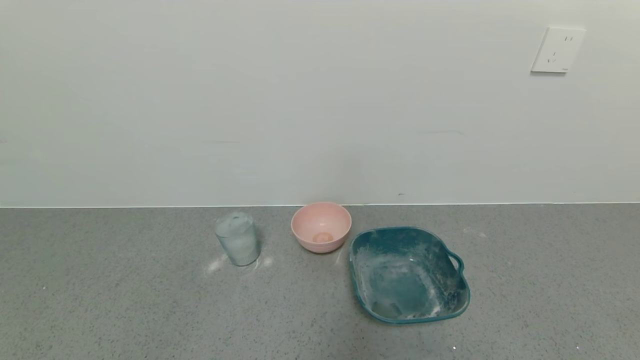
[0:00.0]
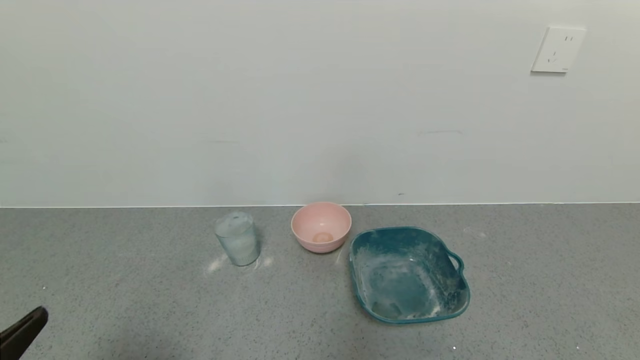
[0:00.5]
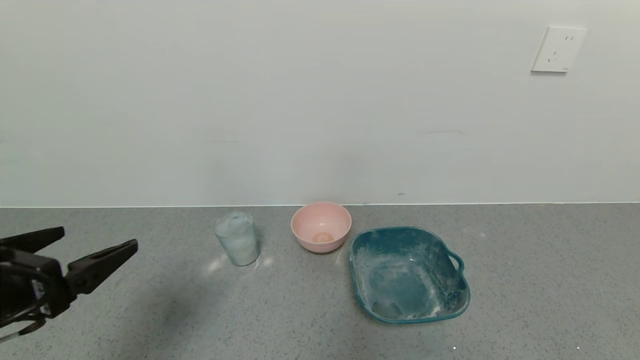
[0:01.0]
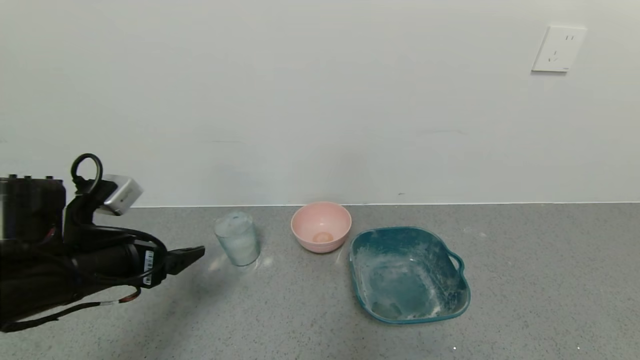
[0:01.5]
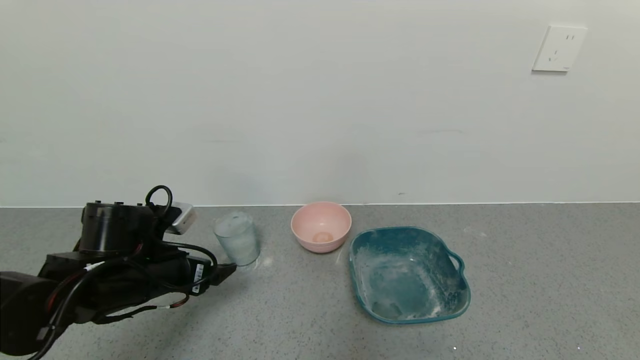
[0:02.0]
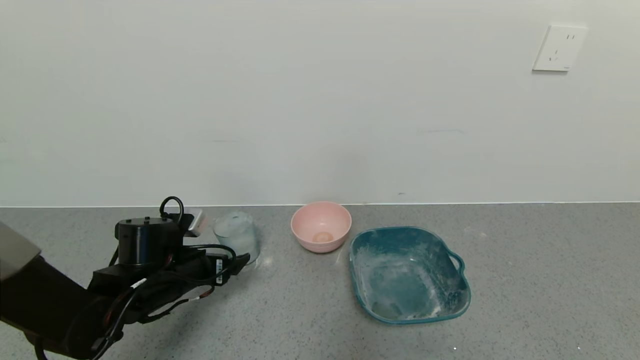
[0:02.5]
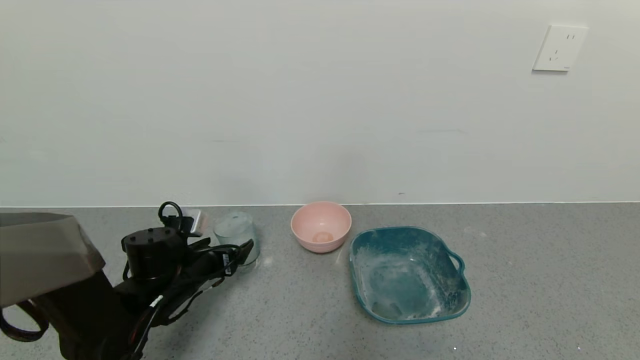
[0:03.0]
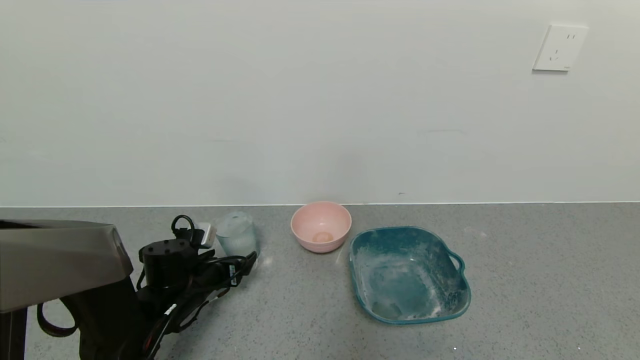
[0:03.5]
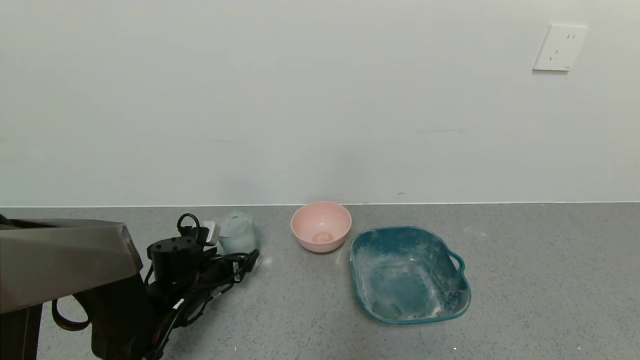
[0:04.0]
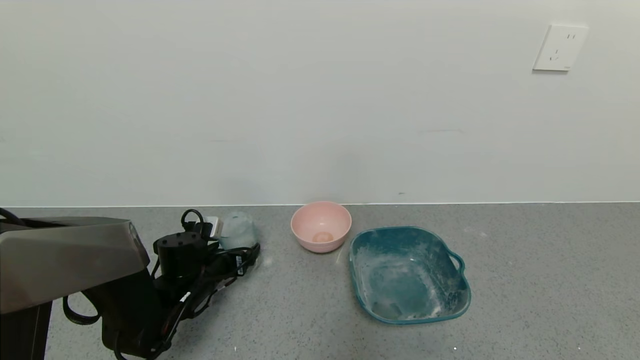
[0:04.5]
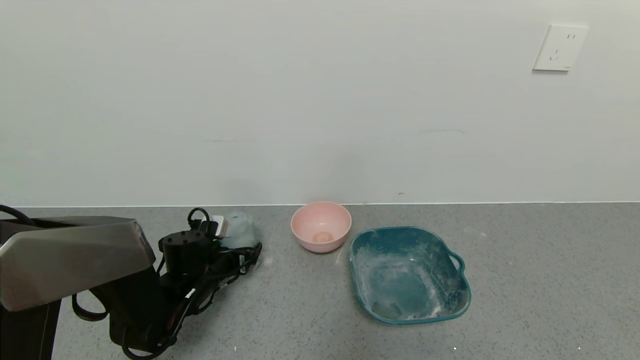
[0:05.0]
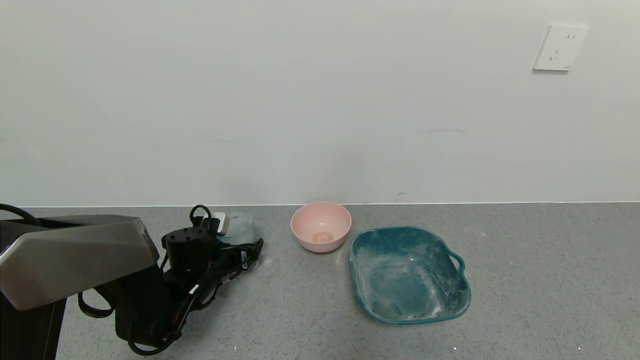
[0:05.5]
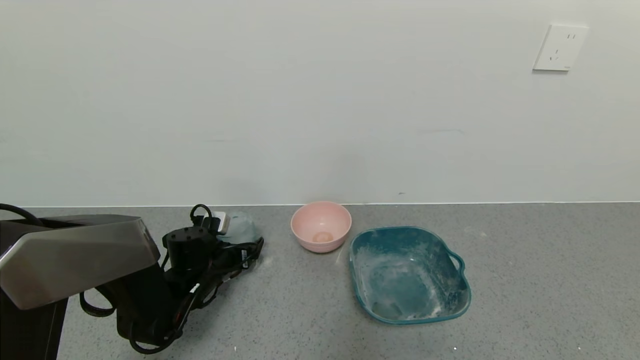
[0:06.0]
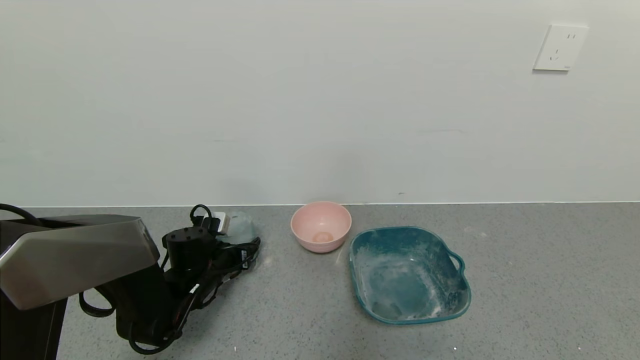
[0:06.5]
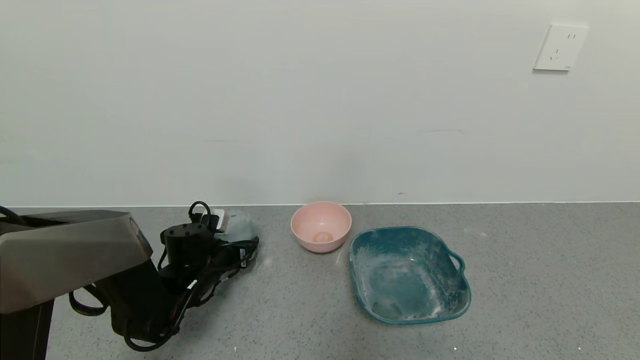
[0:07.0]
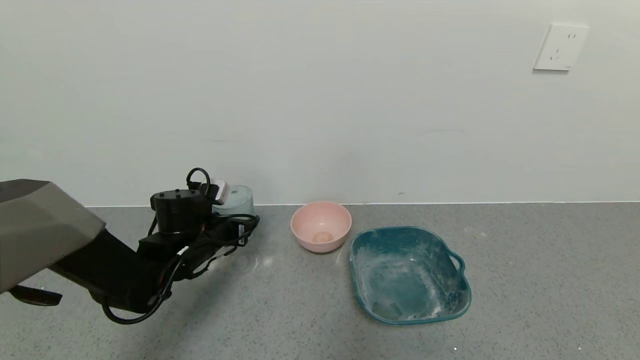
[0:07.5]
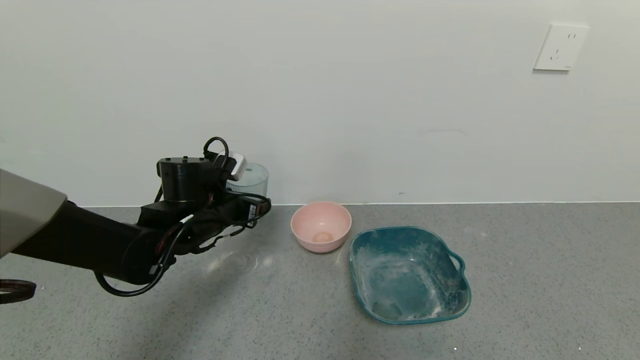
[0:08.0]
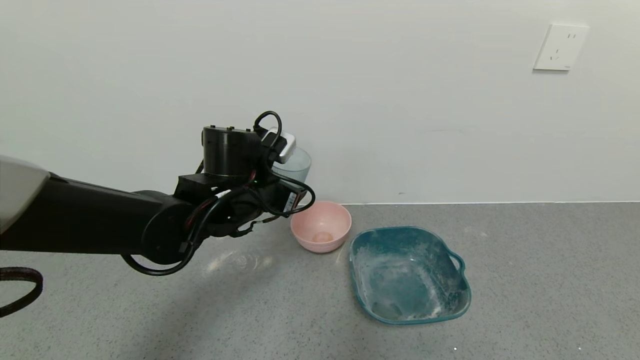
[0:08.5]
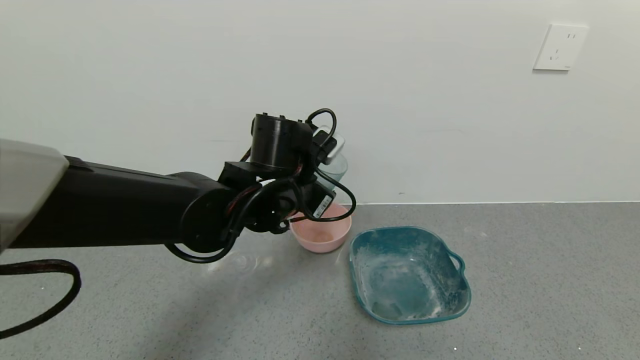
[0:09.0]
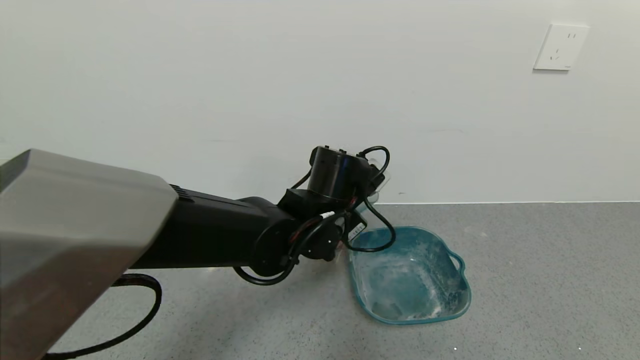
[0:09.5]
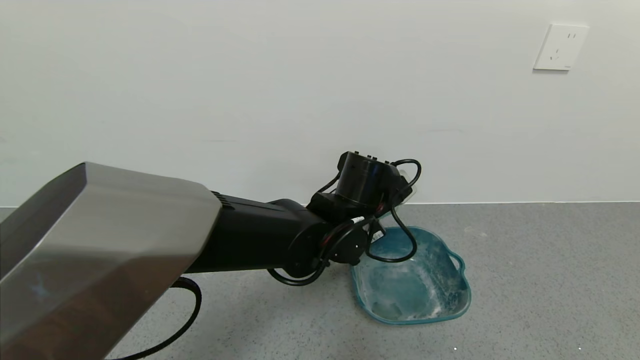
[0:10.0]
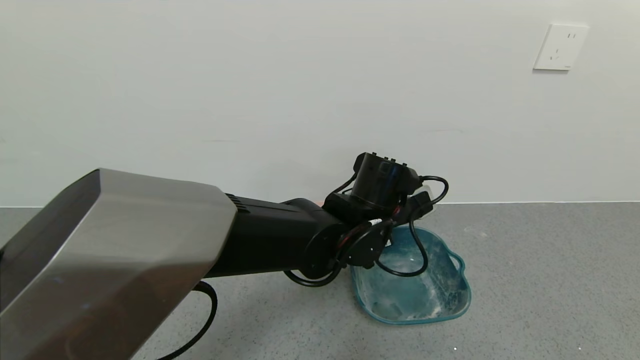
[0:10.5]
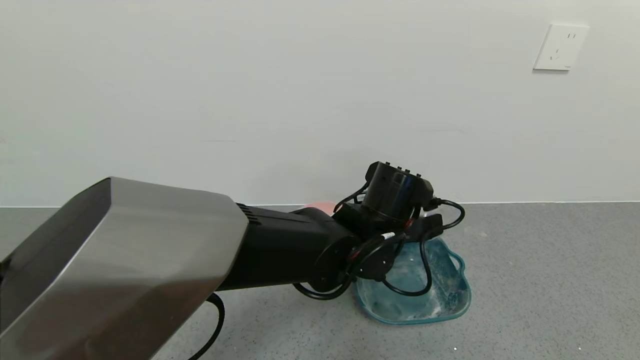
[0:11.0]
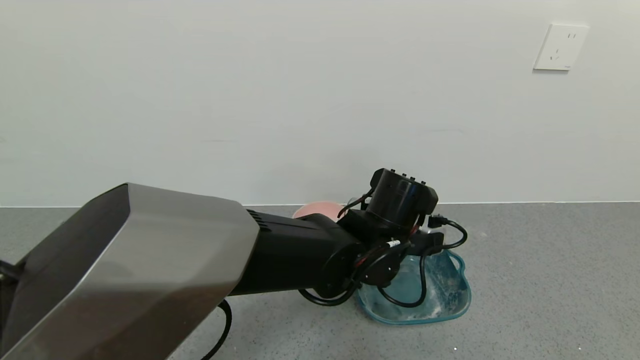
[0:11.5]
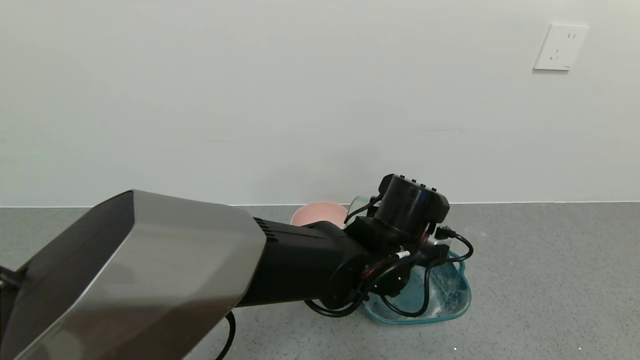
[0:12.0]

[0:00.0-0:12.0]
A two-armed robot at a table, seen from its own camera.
Task of the whole recording: use a gripper to pick up the cup and pour the powder into a bowl or tray.
Step, 0:00.0 to 0:06.0: Grasp the glass of powder with the left gripper.
0:00.0 to 0:02.0: The left gripper travels forward by about 30 cm.
0:02.0 to 0:04.0: The left gripper moves downward and forward, approximately 10 cm.
0:04.0 to 0:06.0: The grippers stay close to where they were, moving slightly.
0:06.0 to 0:08.0: The left gripper moves upward, roughly 15 cm, and closes its fingers.
0:08.0 to 0:10.0: The left gripper is displaced to the right by some 20 cm.
0:10.0 to 0:12.0: The left gripper changes place by about 5 cm.

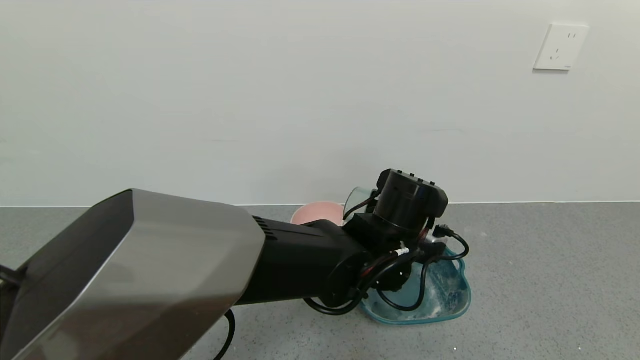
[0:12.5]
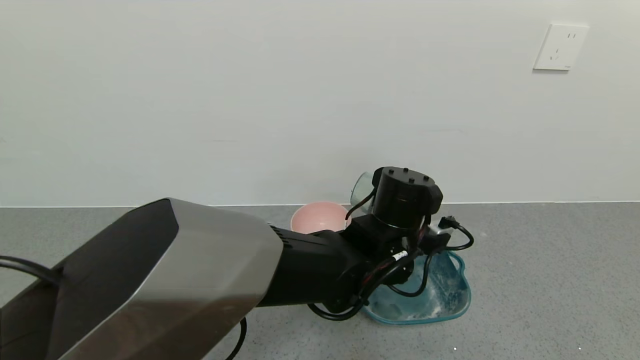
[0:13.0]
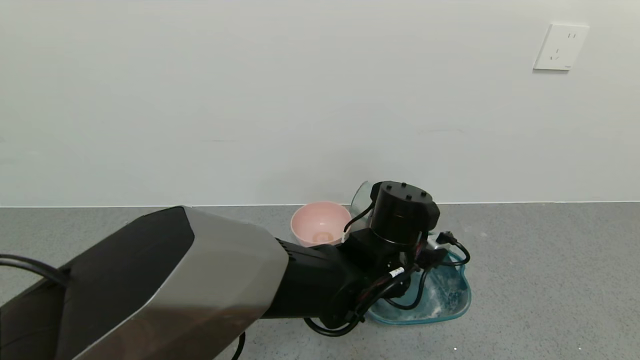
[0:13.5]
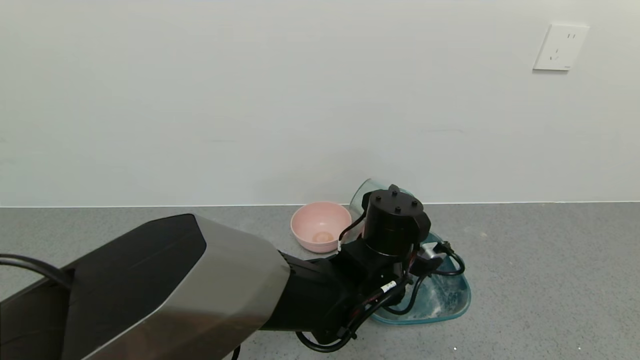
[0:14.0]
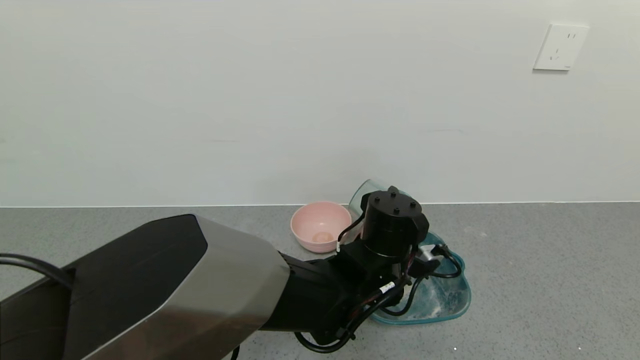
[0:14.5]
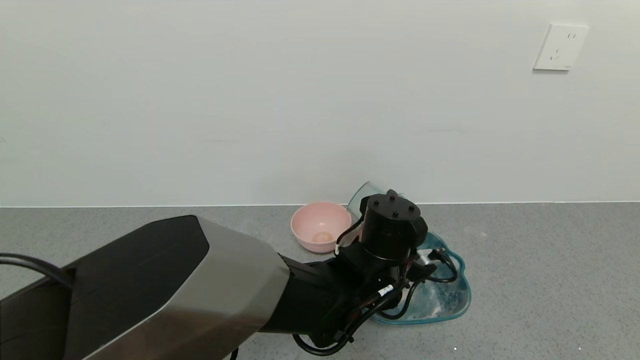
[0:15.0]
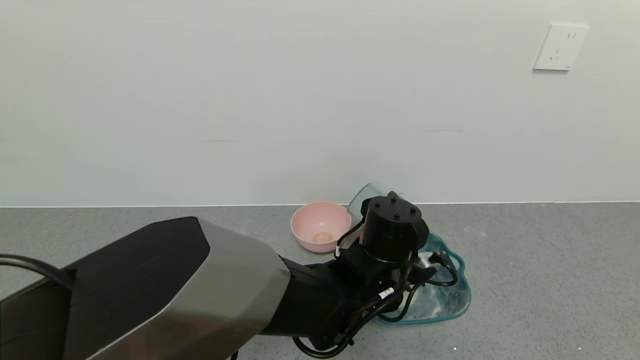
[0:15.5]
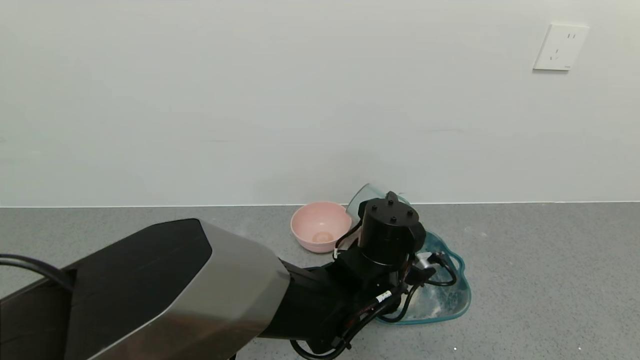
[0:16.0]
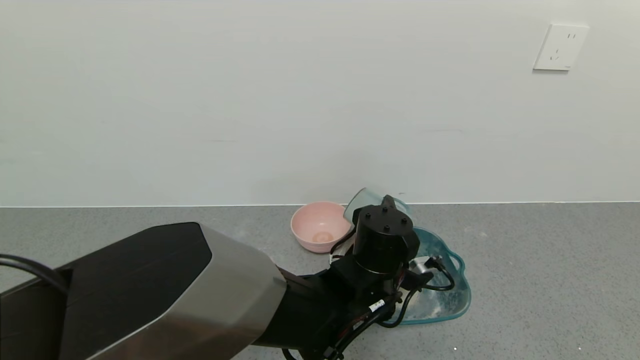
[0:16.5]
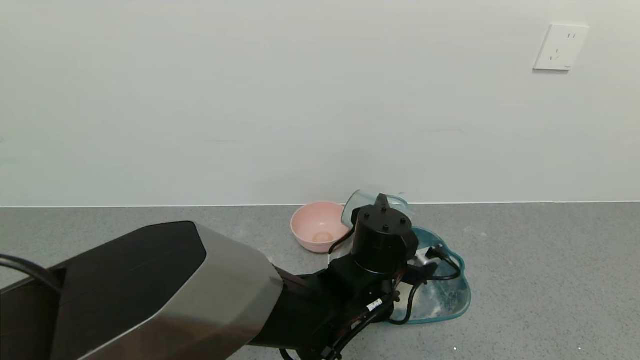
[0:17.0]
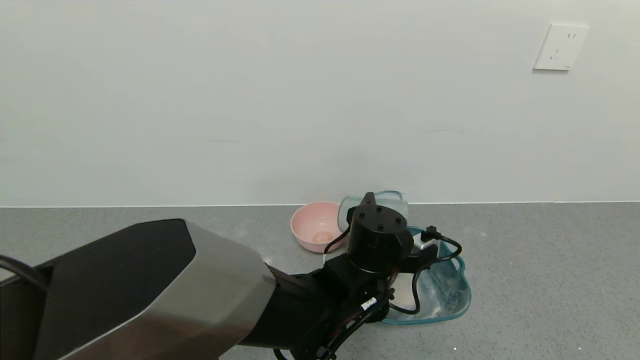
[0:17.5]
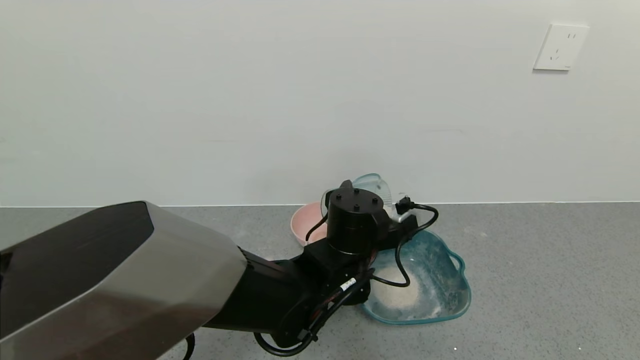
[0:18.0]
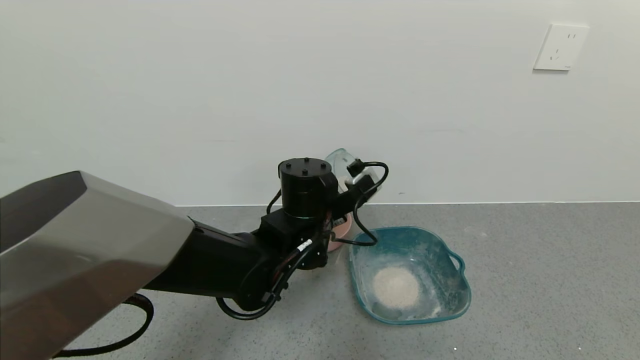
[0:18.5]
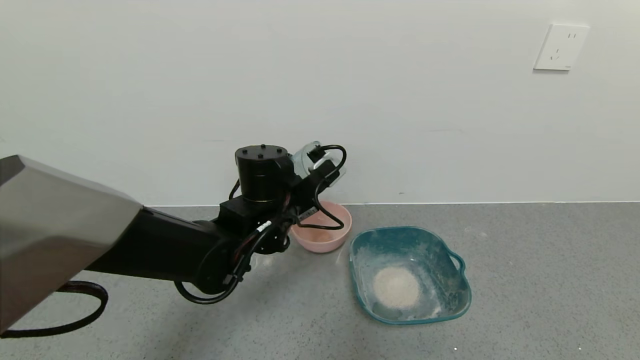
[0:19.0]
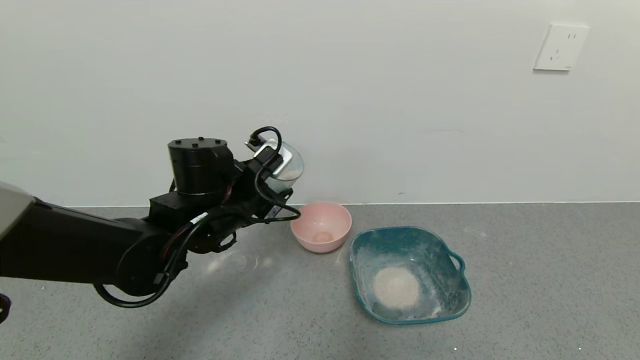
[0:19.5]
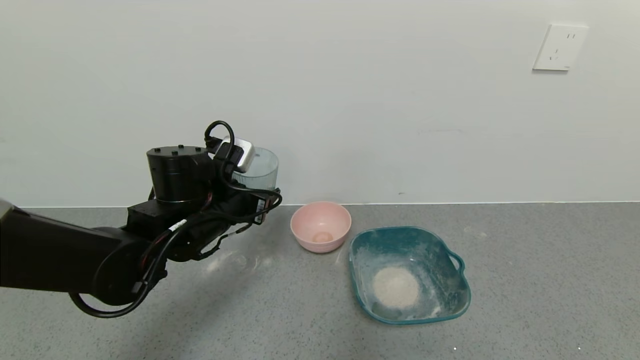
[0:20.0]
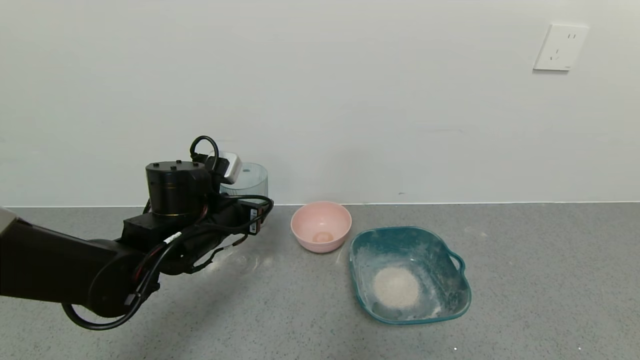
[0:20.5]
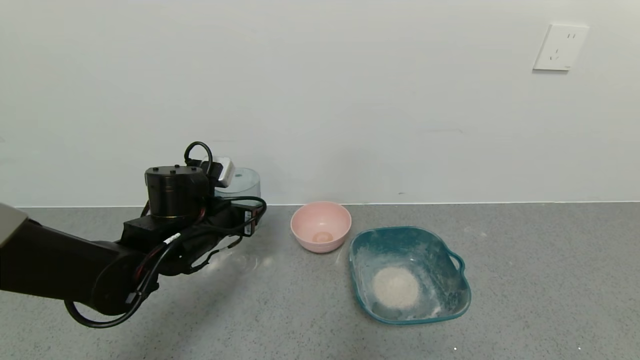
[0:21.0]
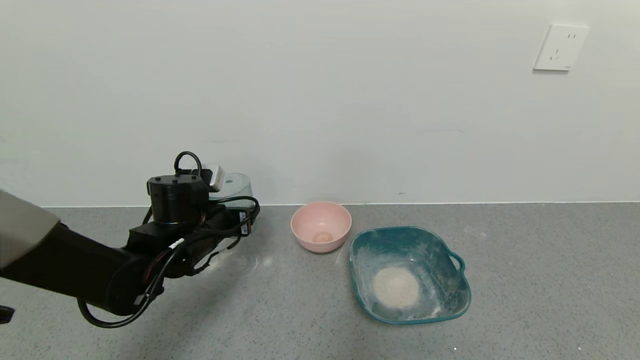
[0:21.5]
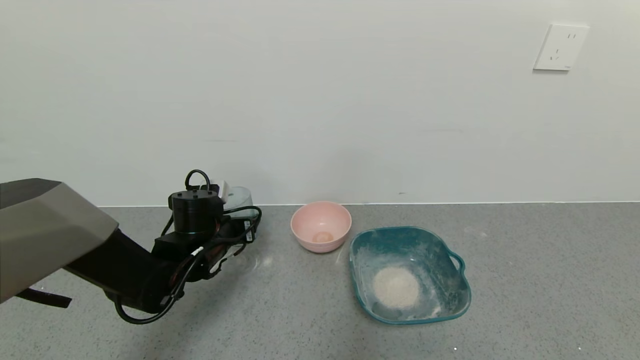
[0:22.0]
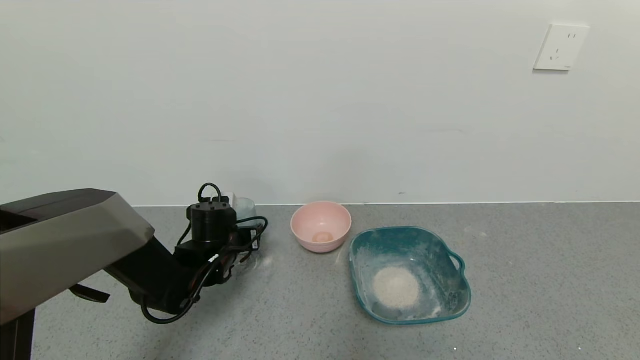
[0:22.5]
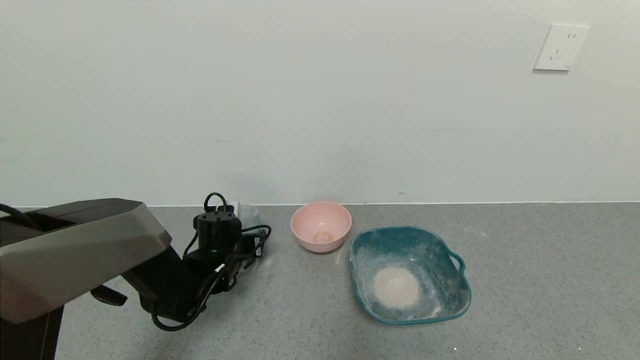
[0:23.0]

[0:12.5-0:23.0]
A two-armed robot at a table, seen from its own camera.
Task of the whole recording: use a gripper to pick up the cup and pour the powder into a bowl or tray.
Step, 0:12.5 to 0:17.0: Pour the powder into the pink bowl with the left gripper.
0:12.5 to 0:16.5: The grippers move only a little.
0:16.5 to 0:19.0: The left gripper travels to the left and forward by some 15 cm.
0:19.0 to 0:21.0: The left gripper goes roughly 10 cm to the left.
0:21.0 to 0:23.0: The left gripper is displaced downward and forward by some 15 cm.
